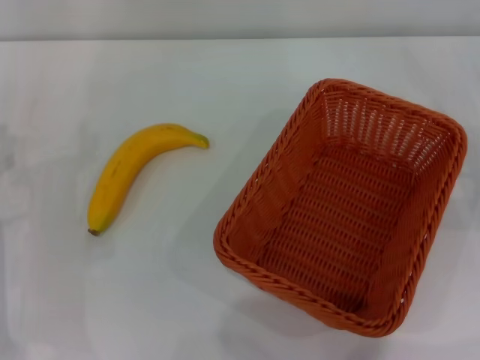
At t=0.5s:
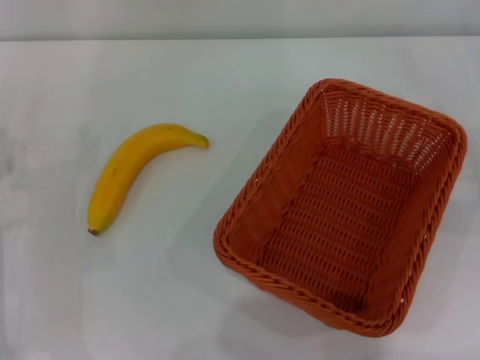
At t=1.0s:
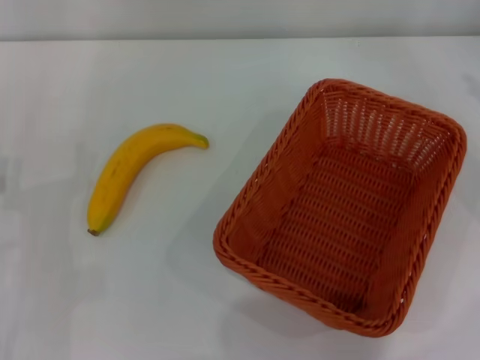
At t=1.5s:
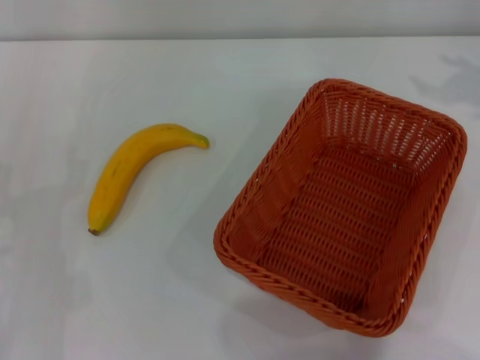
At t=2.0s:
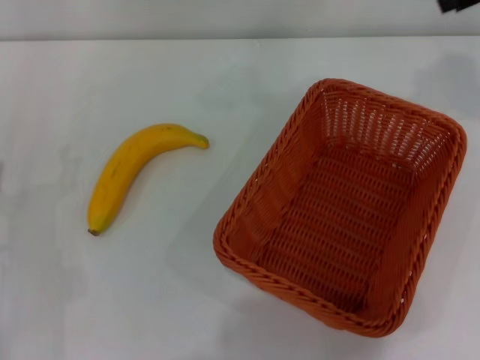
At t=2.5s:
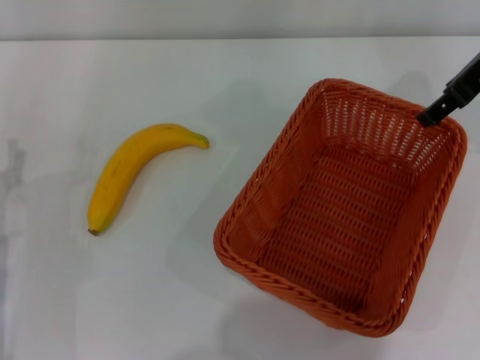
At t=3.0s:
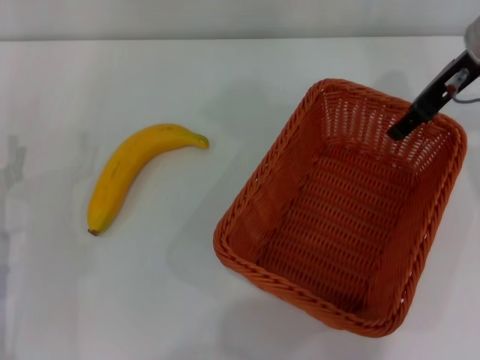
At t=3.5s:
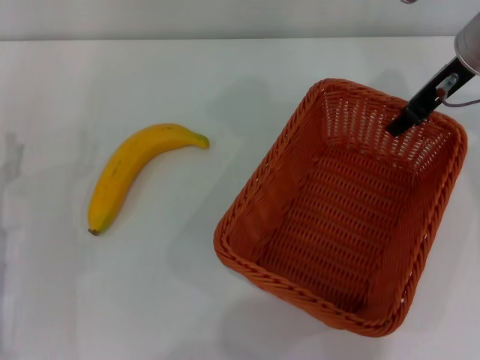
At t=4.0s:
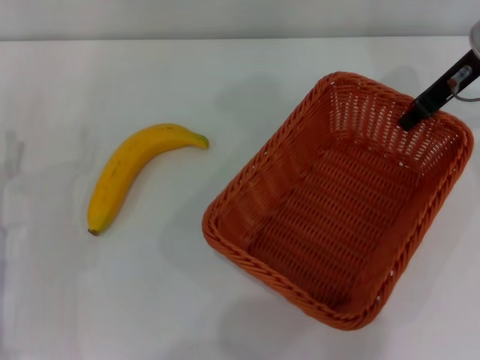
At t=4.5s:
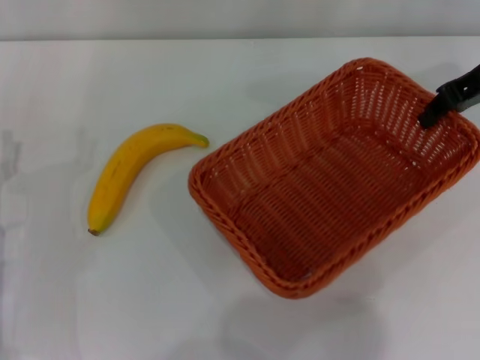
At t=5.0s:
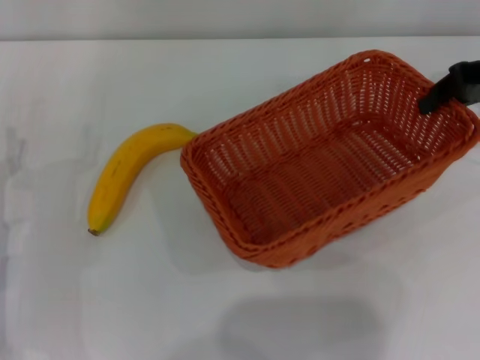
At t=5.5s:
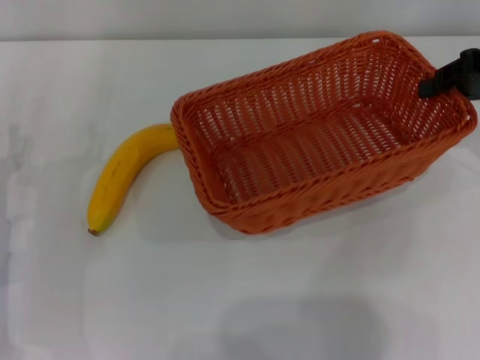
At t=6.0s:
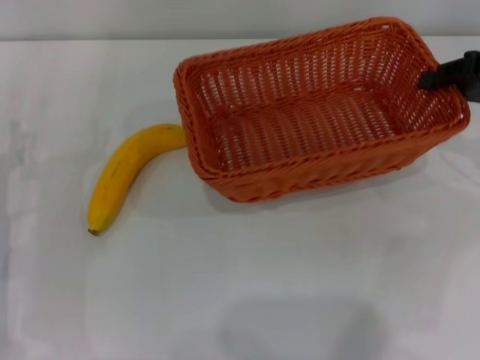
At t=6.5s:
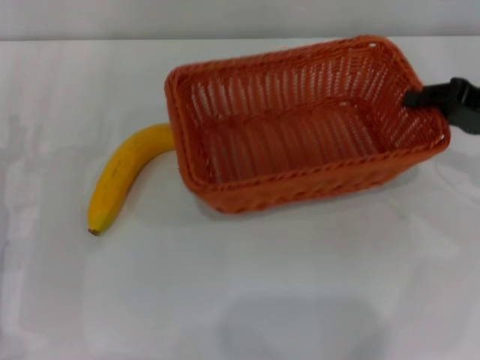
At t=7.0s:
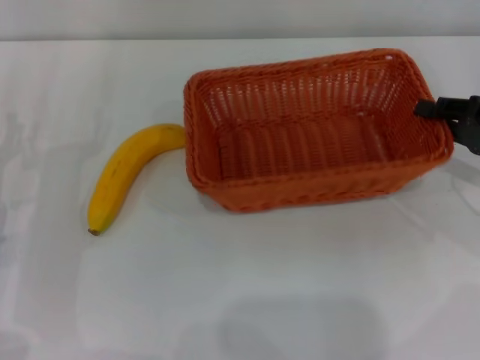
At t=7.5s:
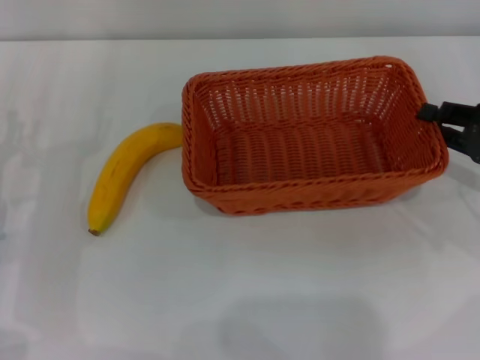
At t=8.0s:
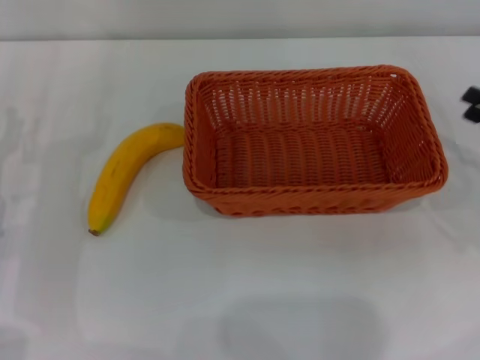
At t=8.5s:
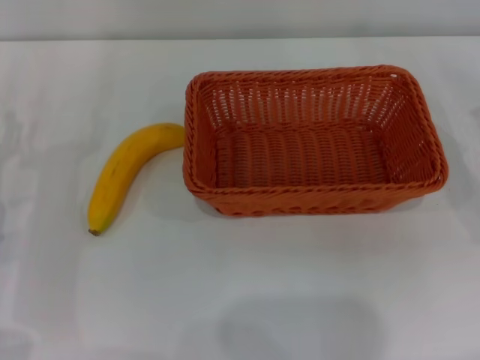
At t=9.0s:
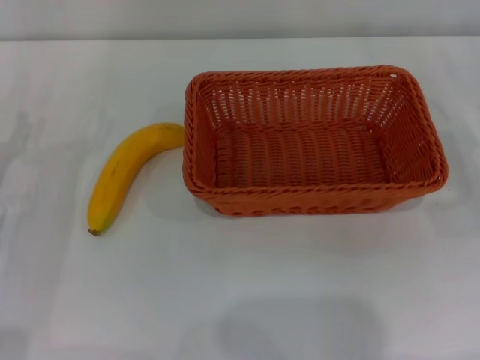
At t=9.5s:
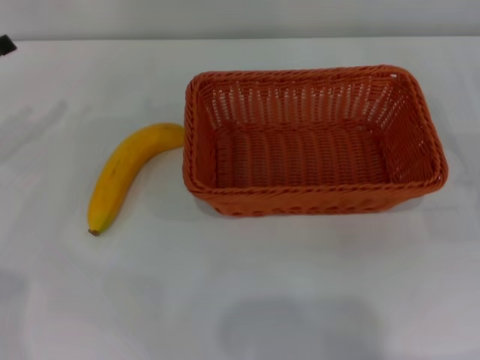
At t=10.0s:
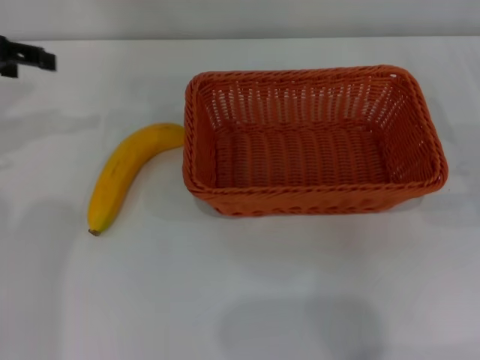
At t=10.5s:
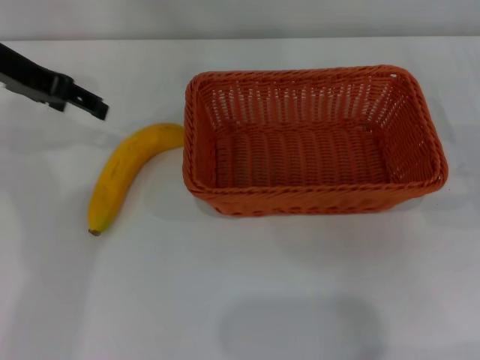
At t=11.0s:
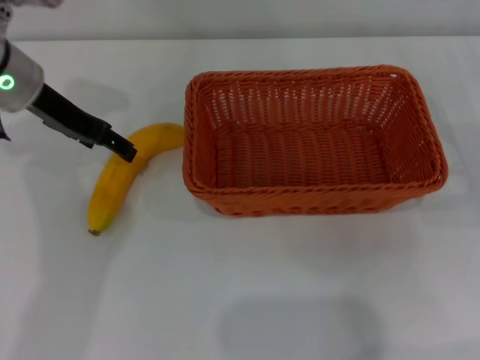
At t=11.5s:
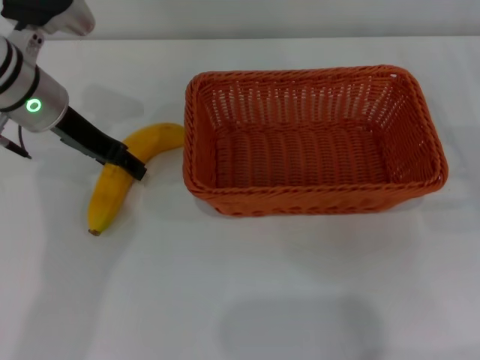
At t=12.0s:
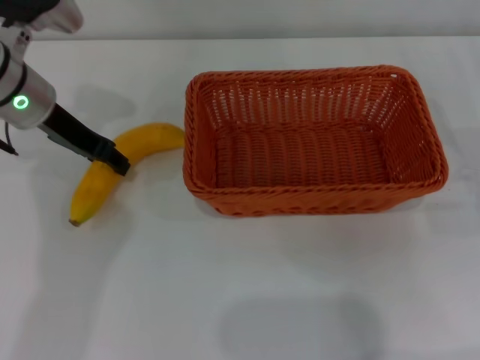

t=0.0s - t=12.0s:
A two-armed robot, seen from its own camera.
Step, t=0.0s - t=4.0s: Pick up the light basket with the right gripper.
Step, t=5.0s - t=7.5s: Place the light basket in the center of view with the right gripper.
t=2.0s - t=4.0s: The right gripper moves downward and to the left, about 10 cm, and closes its fingers.
t=4.0s - t=6.0s: The right gripper heads to the right and backward, covering some 10 cm.
t=6.0s - t=8.0s: The right gripper is displaced downward and backward by roughly 10 cm.
t=8.0s - t=10.0s: The right gripper opens. Meanwhile the left gripper heads upward and forward, covering some 20 cm.
t=10.0s - t=12.0s: The left gripper heads to the right and downward, covering some 15 cm, and closes up.

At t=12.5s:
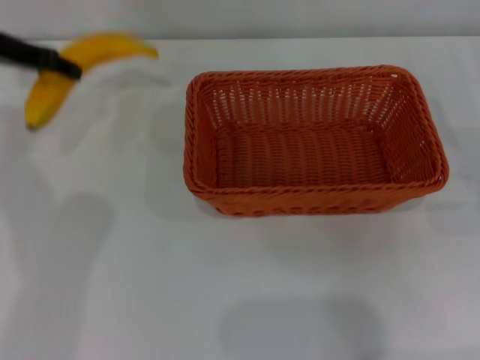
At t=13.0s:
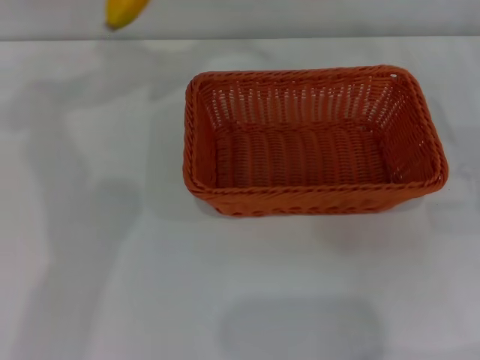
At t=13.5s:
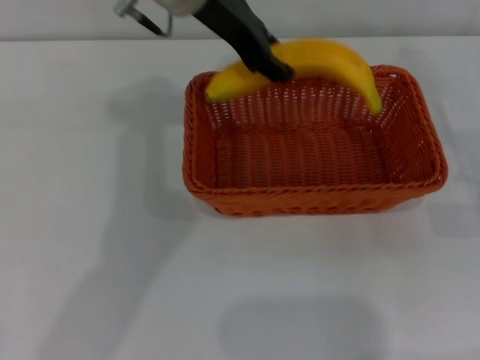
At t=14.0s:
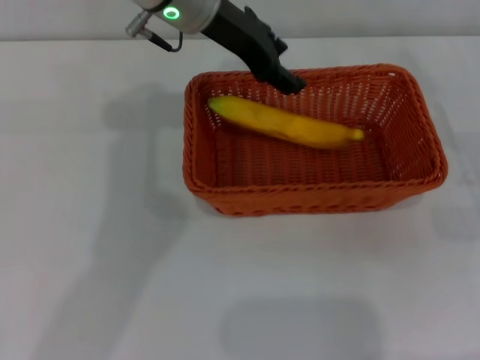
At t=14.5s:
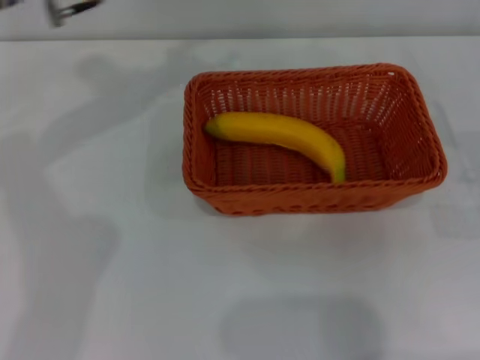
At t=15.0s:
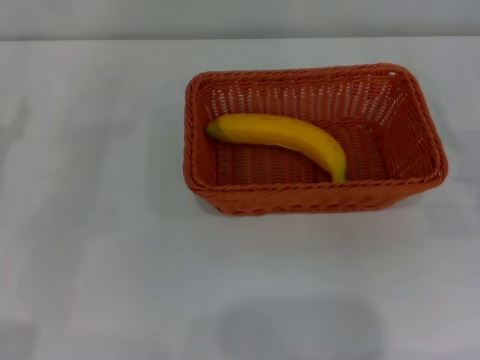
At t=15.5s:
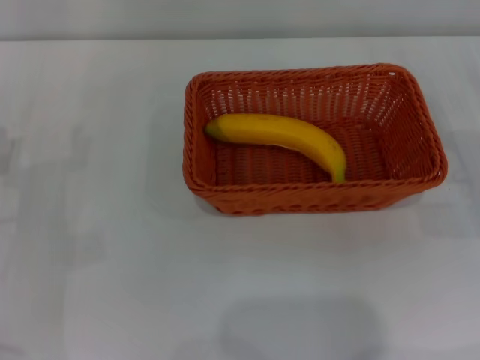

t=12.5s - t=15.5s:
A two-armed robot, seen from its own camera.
Step, t=12.5s - t=13.5s: Place the banana into the light basket with the left gripper.
t=12.5s - t=14.0s: The left gripper heads to the right, covering roughly 20 cm.
t=14.0s - t=15.5s: The left gripper goes some 35 cm to the left, downward and backward, and opens its fingers.

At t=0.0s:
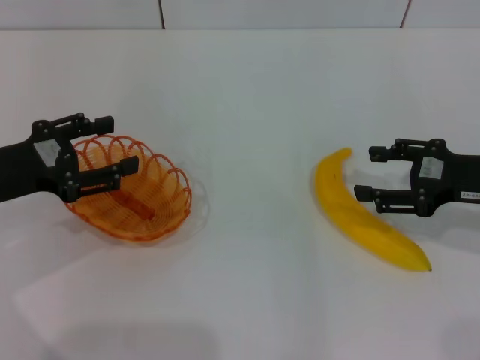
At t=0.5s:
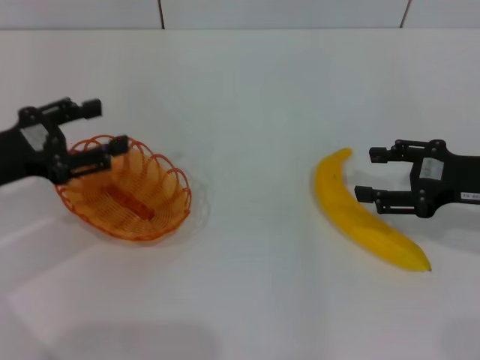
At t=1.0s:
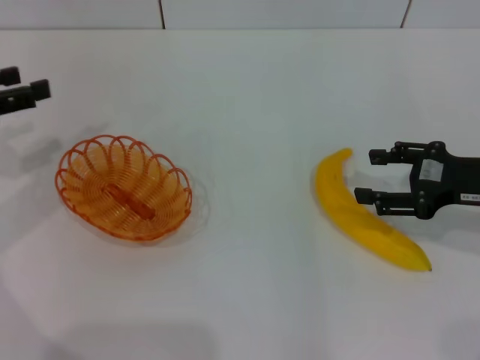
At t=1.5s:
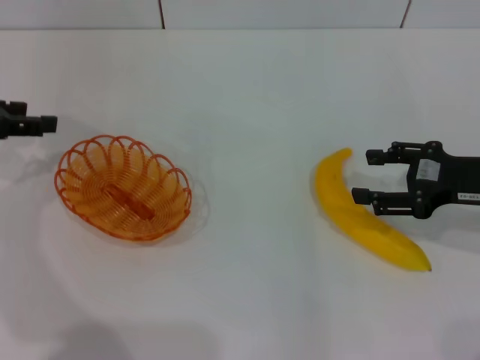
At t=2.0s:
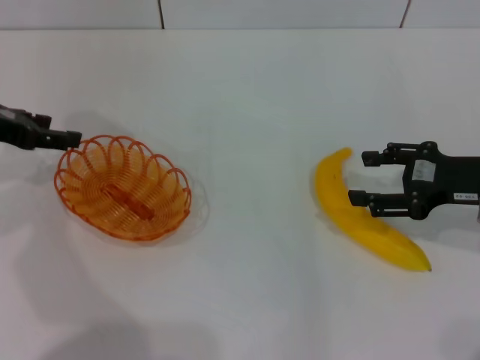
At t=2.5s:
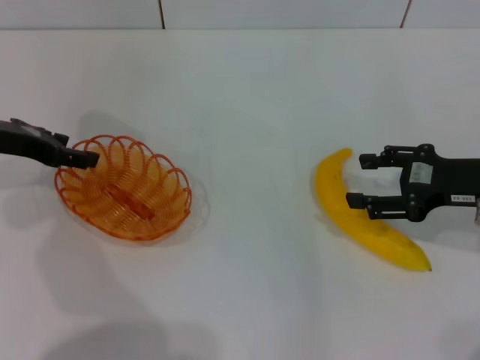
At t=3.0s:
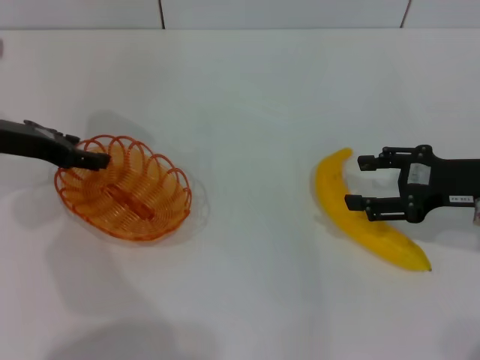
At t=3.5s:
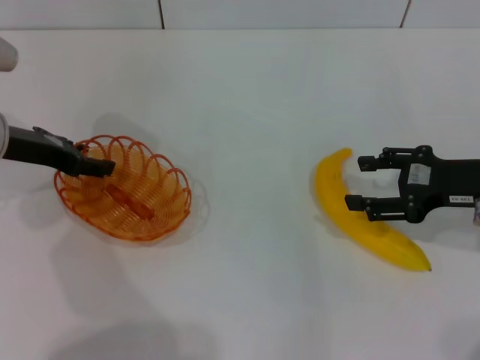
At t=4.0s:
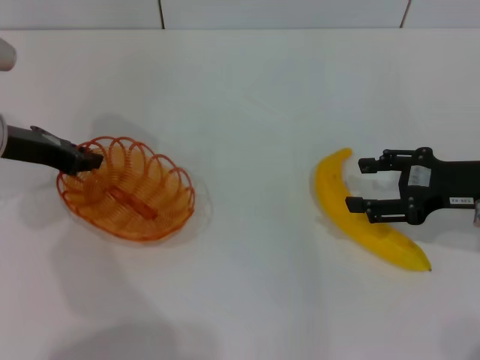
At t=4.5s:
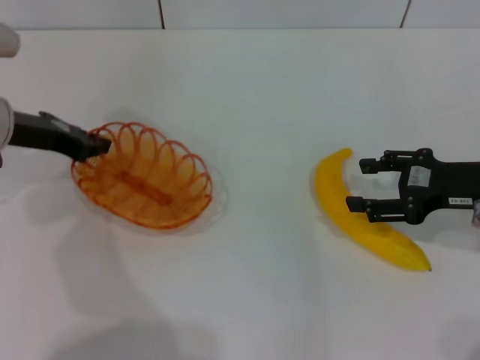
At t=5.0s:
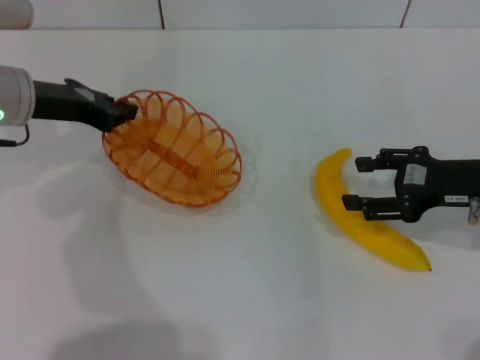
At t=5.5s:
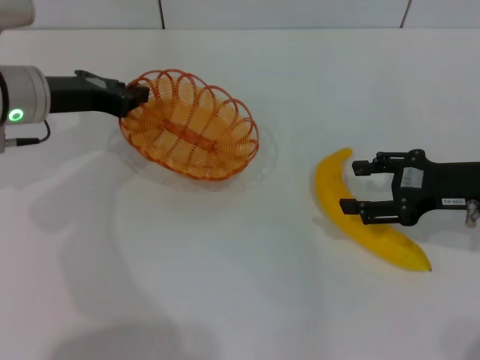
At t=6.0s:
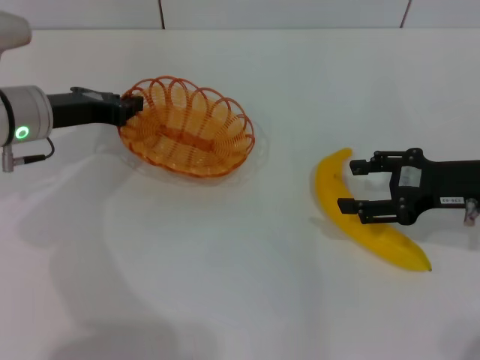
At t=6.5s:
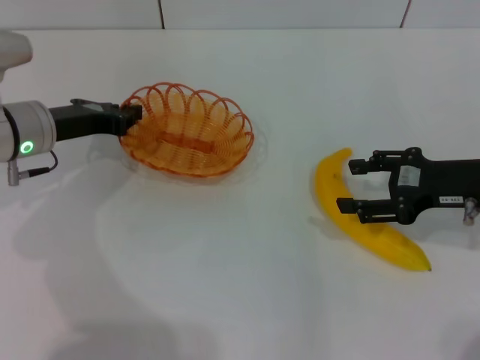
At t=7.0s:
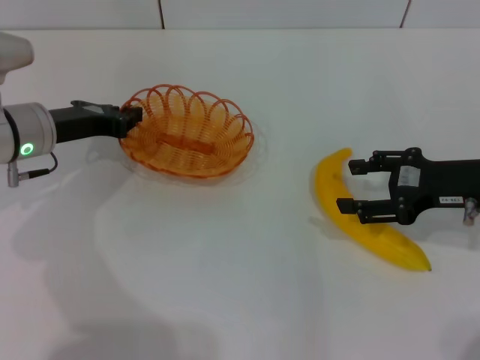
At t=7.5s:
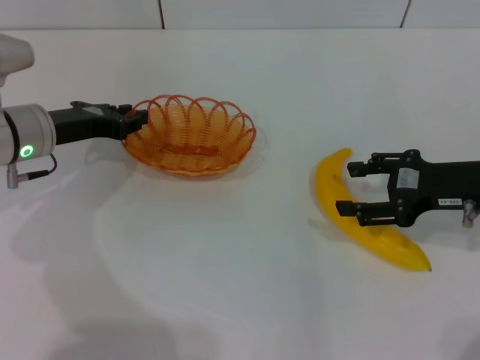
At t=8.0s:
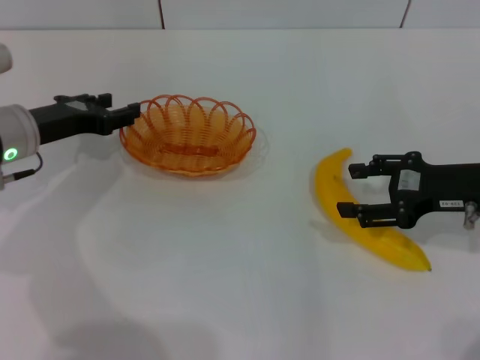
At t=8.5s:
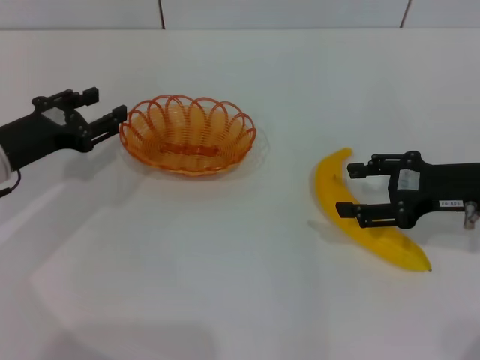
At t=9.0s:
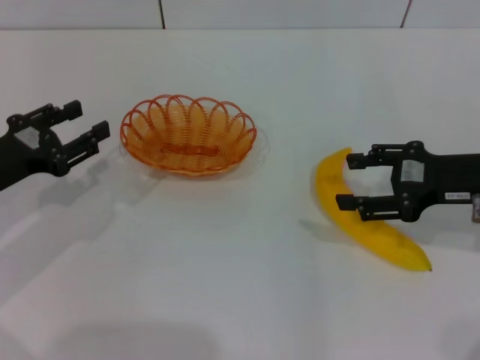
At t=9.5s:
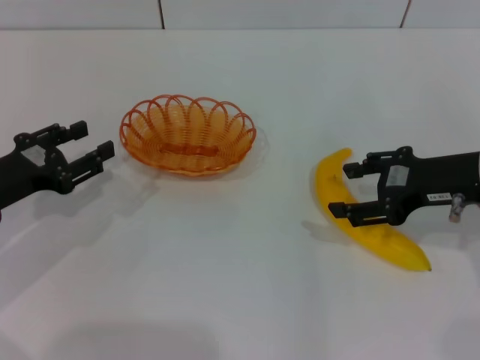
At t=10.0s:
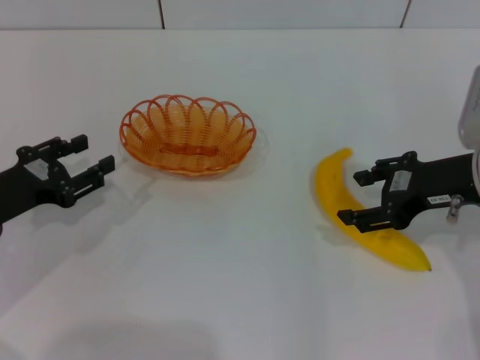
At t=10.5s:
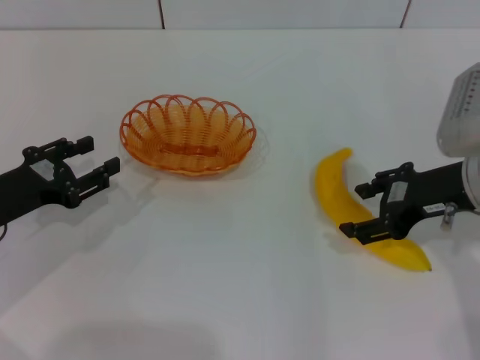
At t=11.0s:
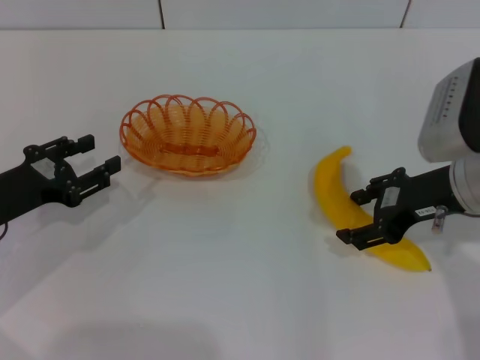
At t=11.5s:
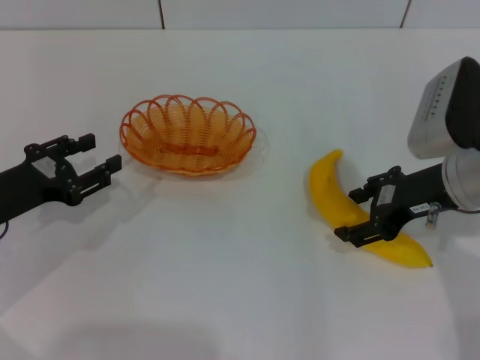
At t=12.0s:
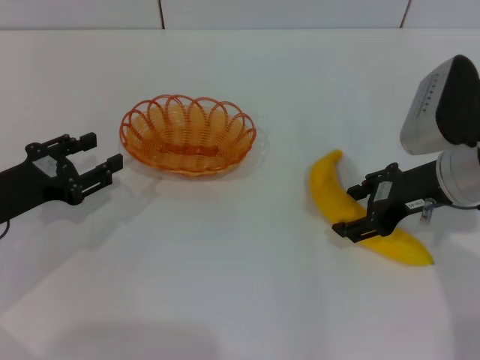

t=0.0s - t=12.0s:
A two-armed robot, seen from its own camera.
Step, t=0.0s - t=4.5s: Pick up the basket with the left gripper.
Step, t=5.0s - t=8.0s: Place the basket in the center of view with the left gripper.
t=0.0s - t=2.0s: The left gripper shifts some 10 cm forward.
t=2.0s - t=4.0s: The left gripper moves about 5 cm, and closes up.
t=6.0s - t=8.0s: The left gripper opens up.
t=8.0s - t=10.0s: The right gripper ends up roughly 5 cm from where it was; the left gripper shifts roughly 10 cm backward.
t=10.0s - t=12.0s: The grippers make only small movements.
